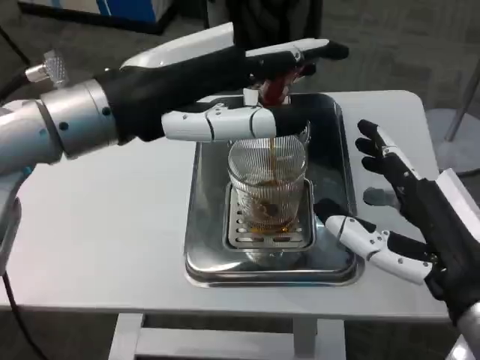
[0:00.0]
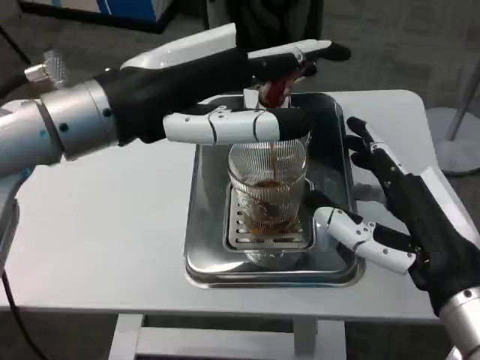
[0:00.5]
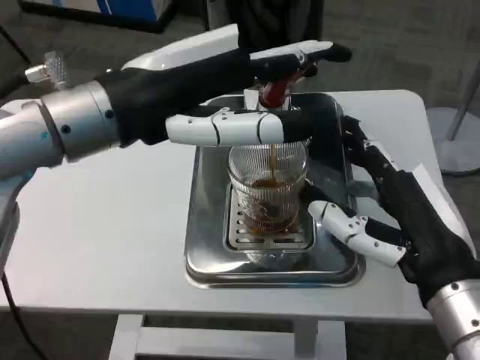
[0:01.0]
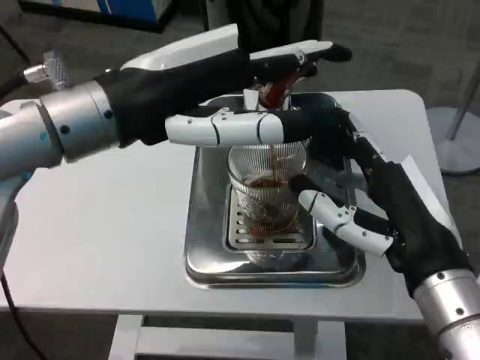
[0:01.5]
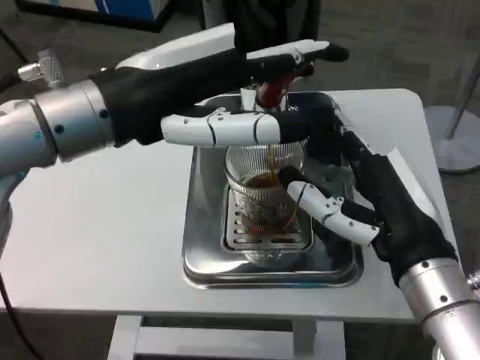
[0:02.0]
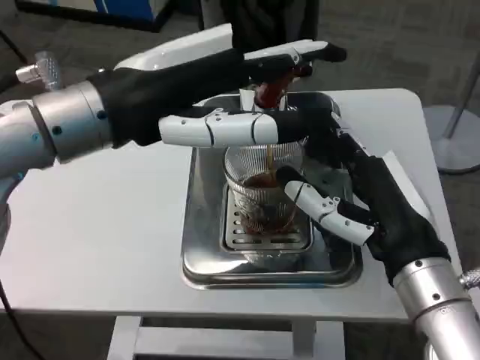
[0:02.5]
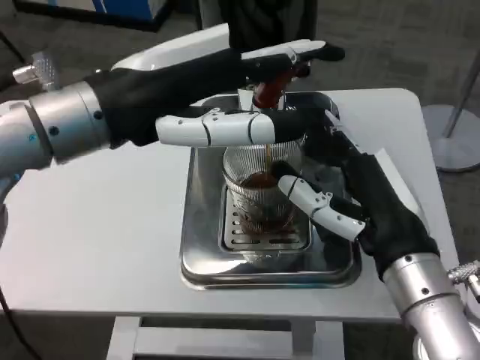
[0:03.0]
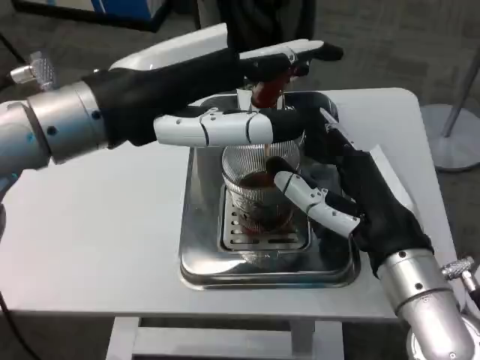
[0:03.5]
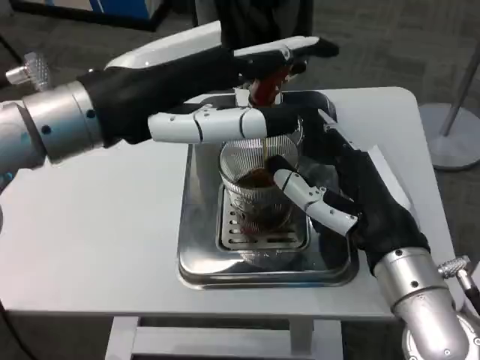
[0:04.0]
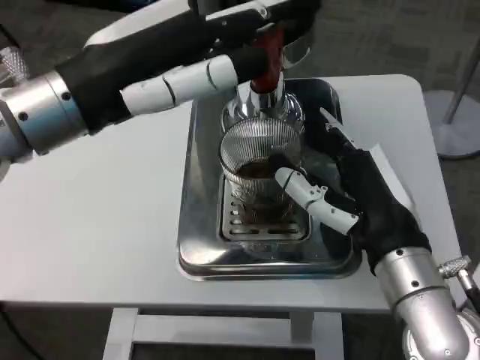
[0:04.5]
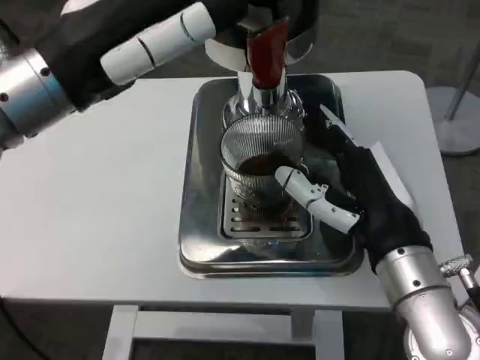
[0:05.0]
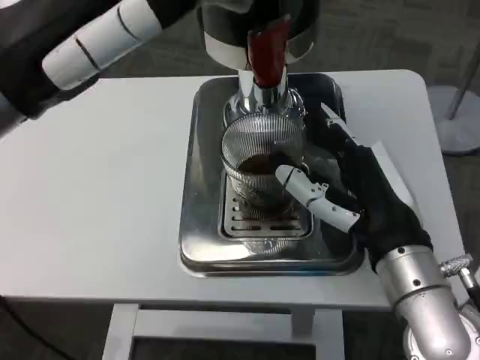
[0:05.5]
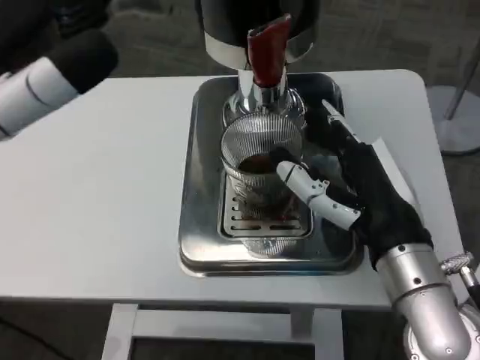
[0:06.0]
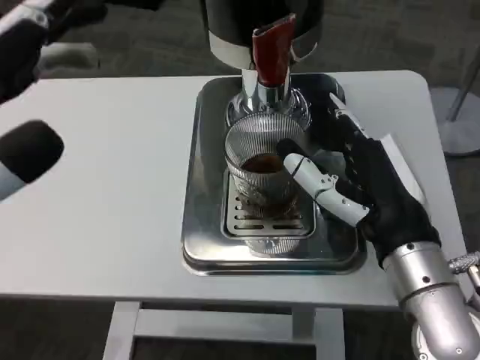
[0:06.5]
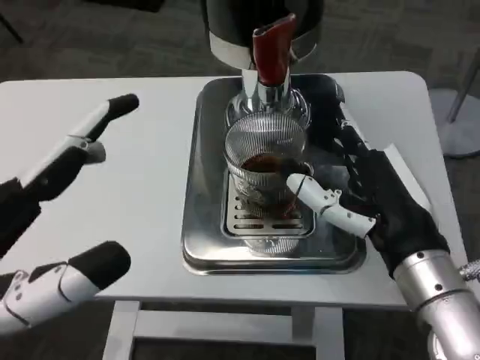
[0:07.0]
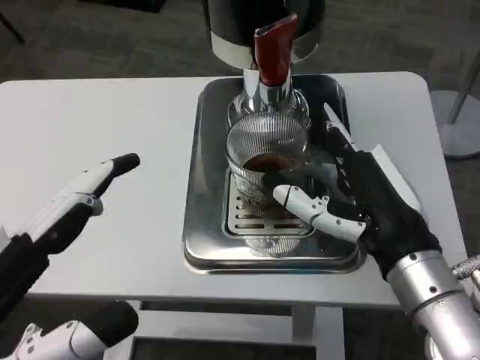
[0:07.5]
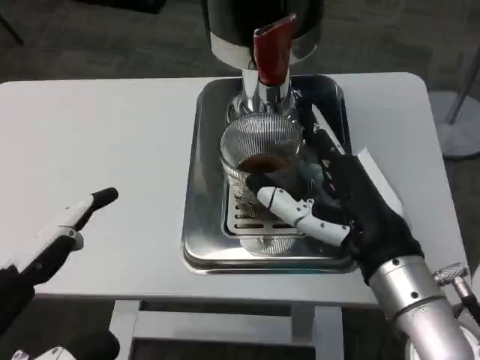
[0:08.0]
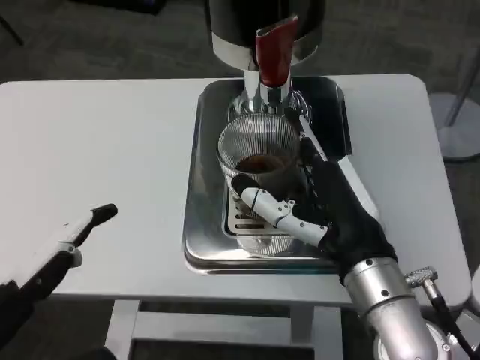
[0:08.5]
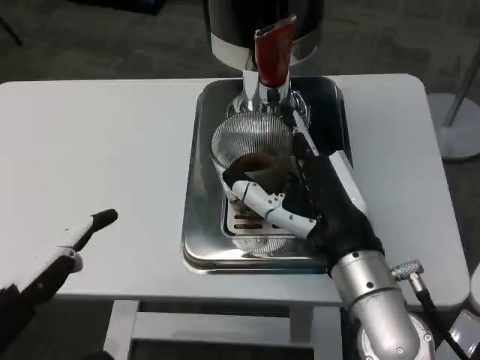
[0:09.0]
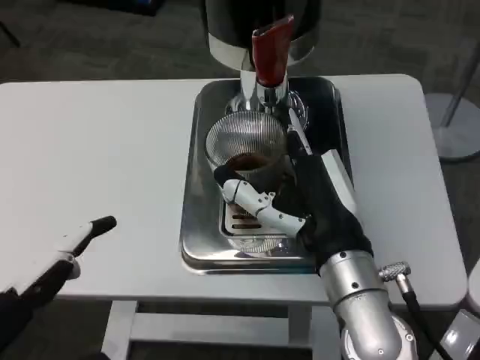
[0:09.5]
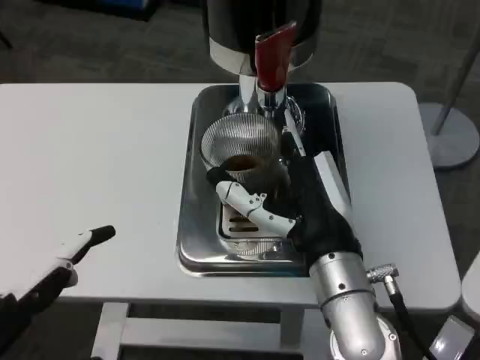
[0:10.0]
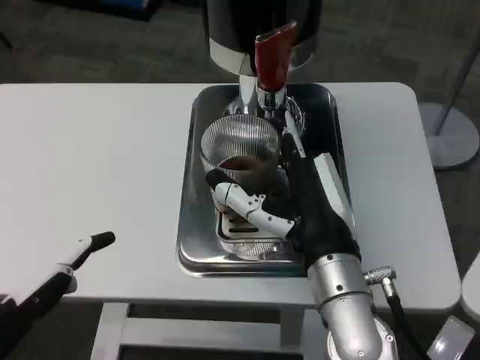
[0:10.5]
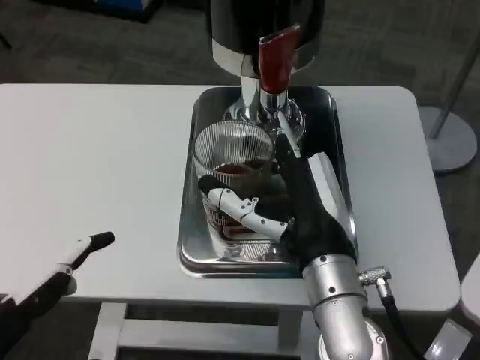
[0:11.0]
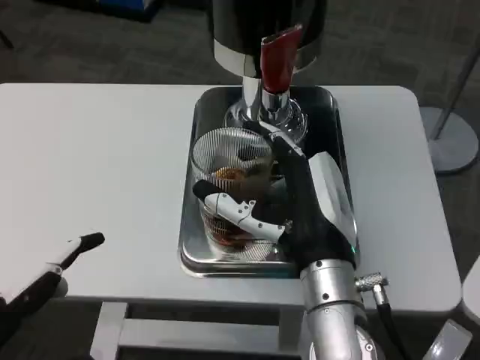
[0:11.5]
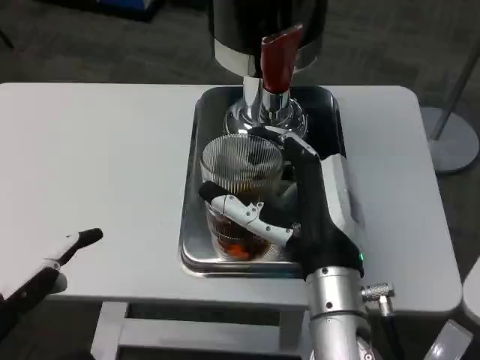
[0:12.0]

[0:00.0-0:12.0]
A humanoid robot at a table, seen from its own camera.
Task of the whole recording: Grasp the cup under the faucet to collect the drink, then remove the cup.
0:00.0 to 0:02.0: The right hand shifts by roughly 5 cm.
0:04.0 to 0:06.0: The left hand moves backward and to the left, about 10 cm.
0:06.0 to 0:08.0: The left hand shifts about 15 cm downward and backward.
0:08.0 to 0:10.0: The right hand goes roughly 5 cm to the left.
0:10.0 to 0:12.0: The hands move only a little.

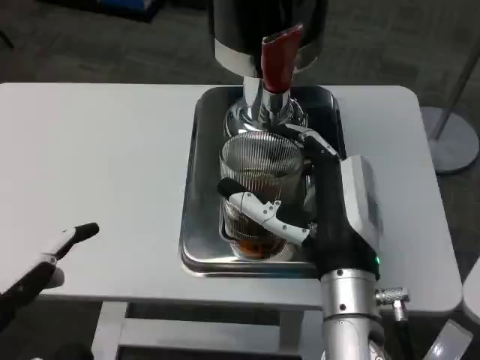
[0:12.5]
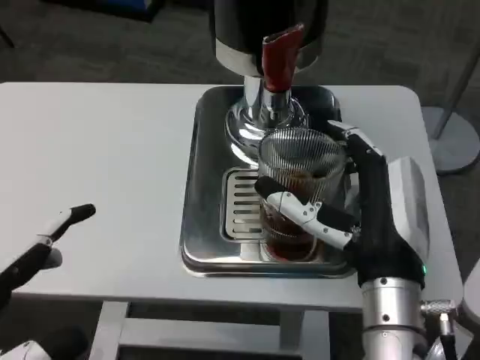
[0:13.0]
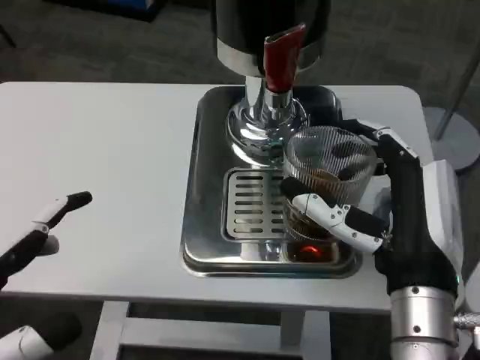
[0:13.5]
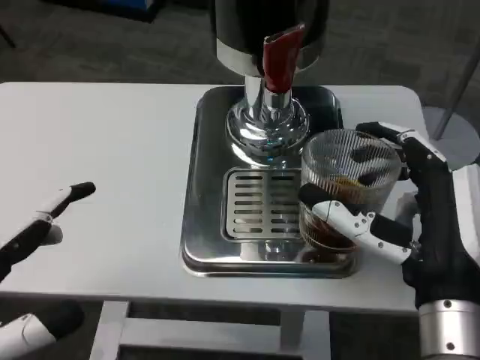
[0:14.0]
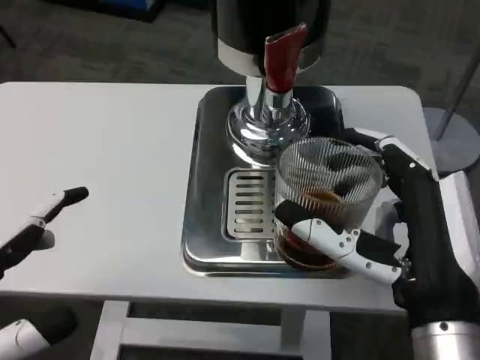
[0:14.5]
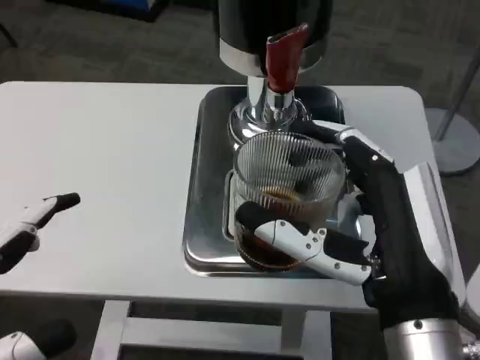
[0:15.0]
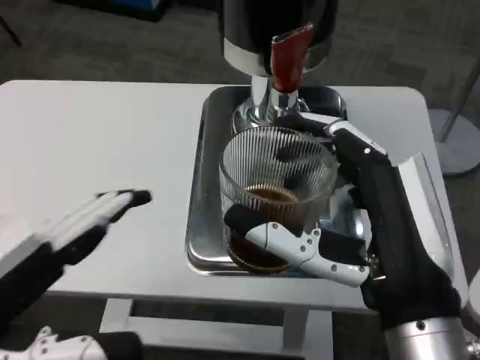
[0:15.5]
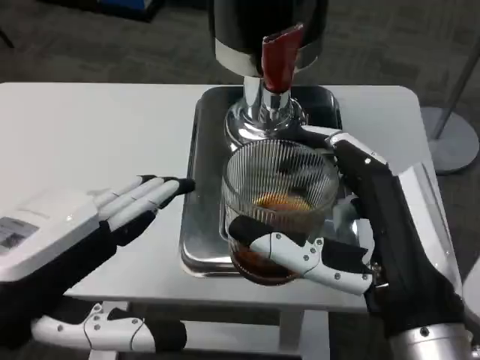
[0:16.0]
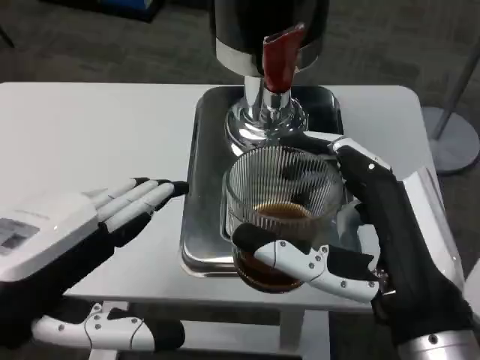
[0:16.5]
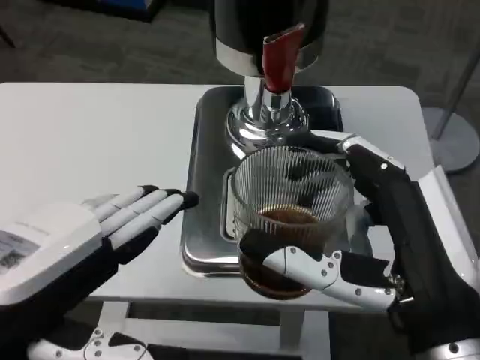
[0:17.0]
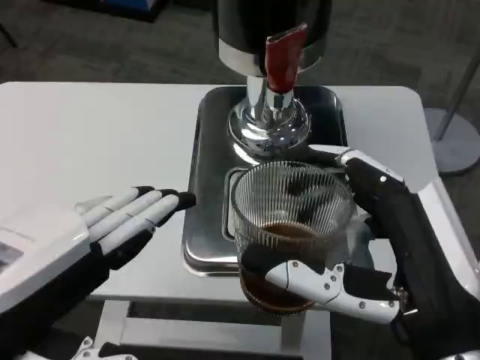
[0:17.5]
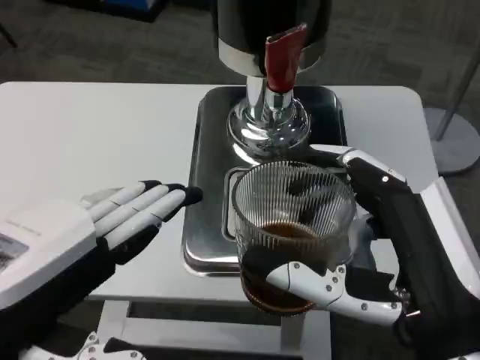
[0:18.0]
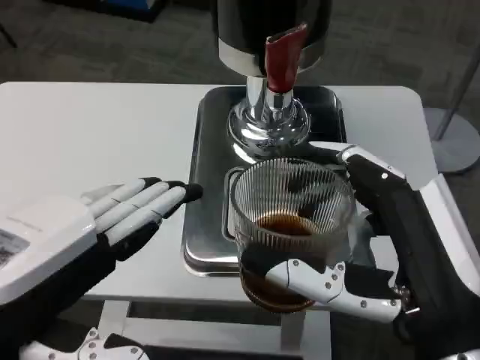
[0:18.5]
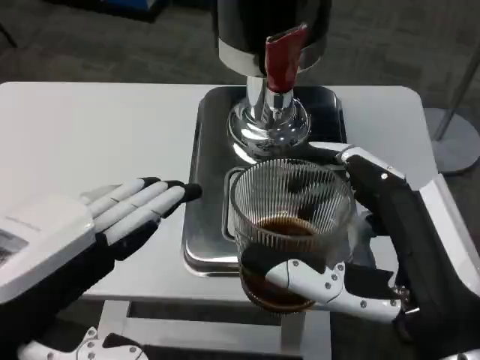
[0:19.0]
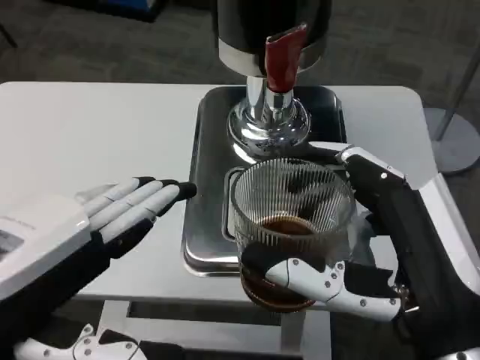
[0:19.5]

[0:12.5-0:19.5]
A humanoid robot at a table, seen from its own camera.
Task of the whole recording: Grasp the cup under the faucet to collect the drink, then remove the cup.
0:12.5 to 0:14.5: The right hand heads backward and to the right, covering approximately 10 cm.
0:14.5 to 0:16.0: The left hand shifts by some 5 cm.
0:17.5 to 0:19.5: Both hands stay about where they are.

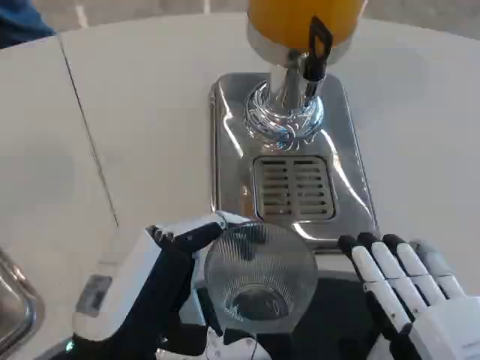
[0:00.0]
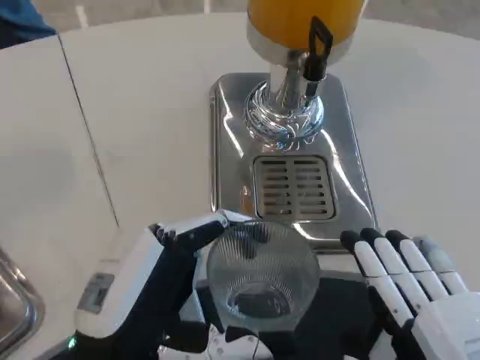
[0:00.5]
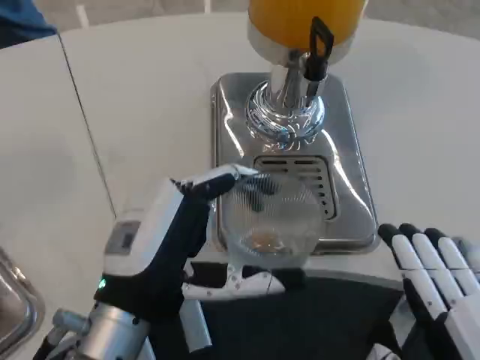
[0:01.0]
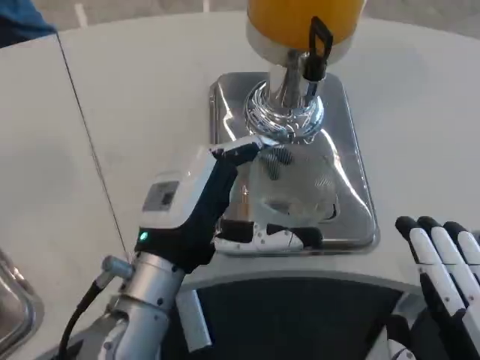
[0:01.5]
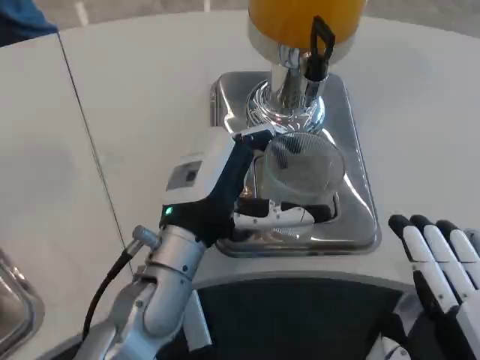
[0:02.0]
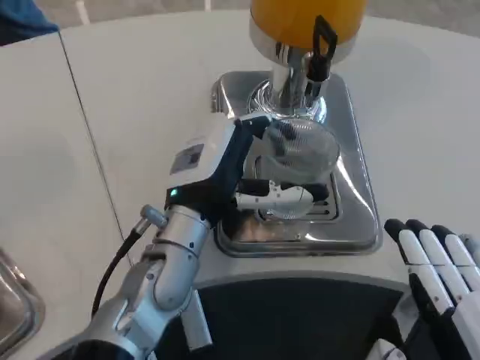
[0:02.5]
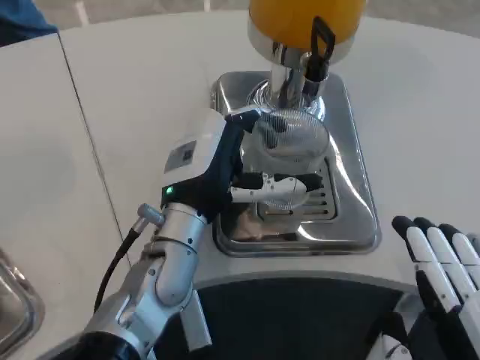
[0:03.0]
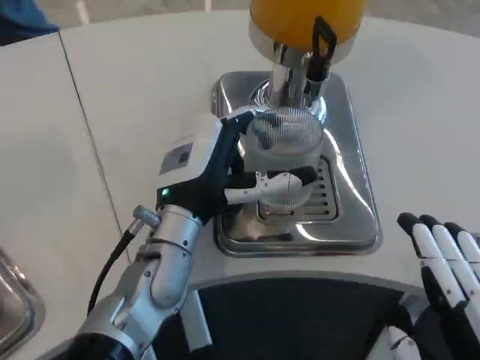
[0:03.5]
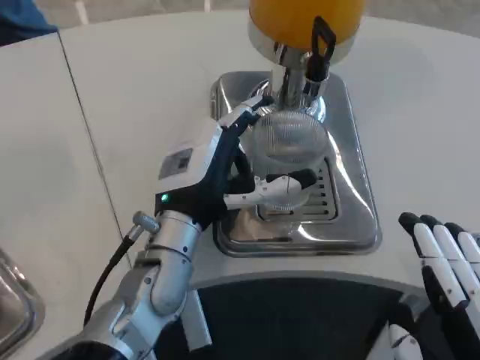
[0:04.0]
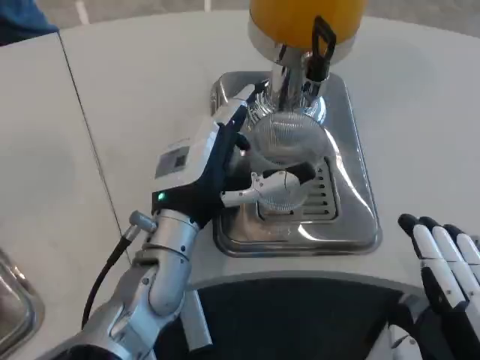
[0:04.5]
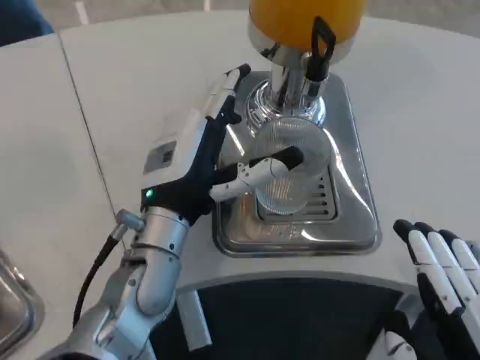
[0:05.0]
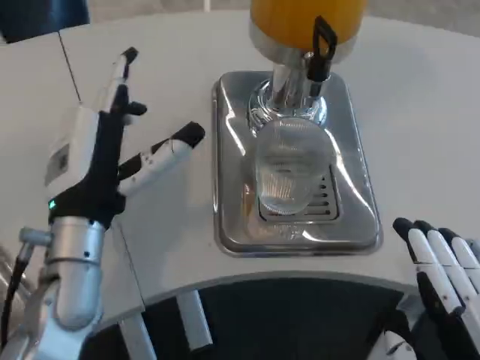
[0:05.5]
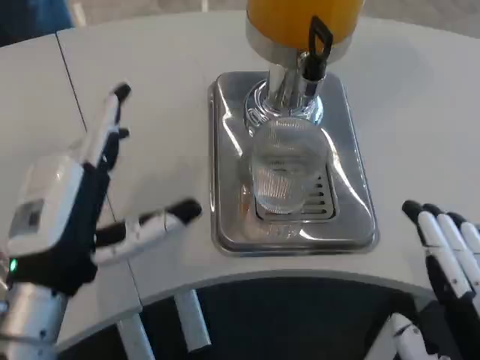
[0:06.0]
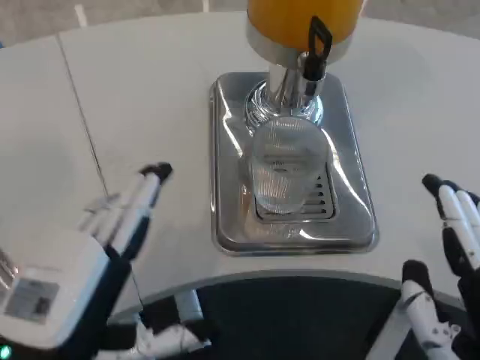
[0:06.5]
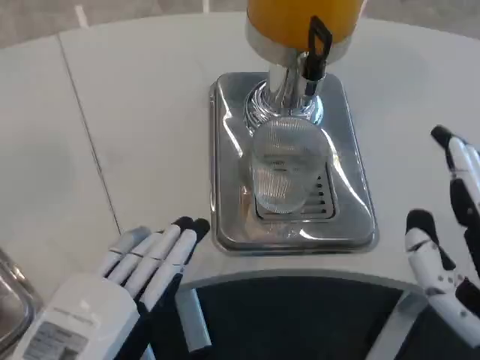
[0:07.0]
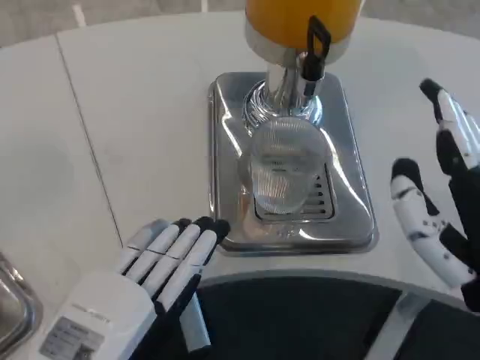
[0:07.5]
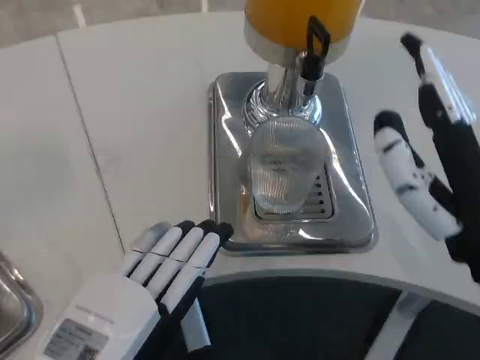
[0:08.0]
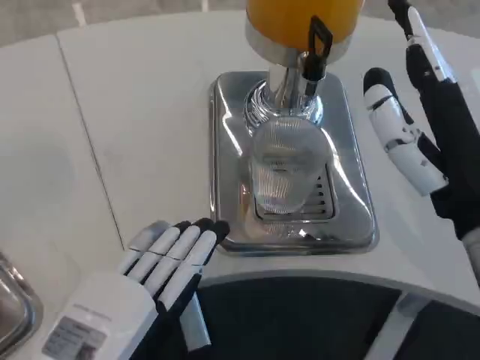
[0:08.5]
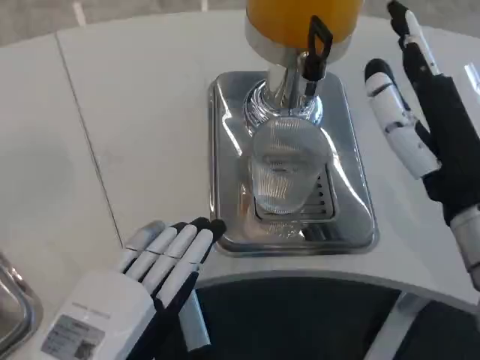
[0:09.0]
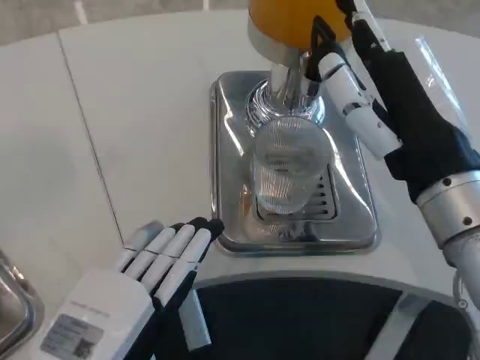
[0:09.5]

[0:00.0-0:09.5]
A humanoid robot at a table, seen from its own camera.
Task of the whole recording: Grasp the cup under the faucet to collect the drink, then remove the cup.
0:00.0 to 0:02.0: The left hand shifts approximately 15 cm forward.
0:02.0 to 0:04.0: The hands stay close to where they were, moving slightly.
0:04.0 to 0:05.5: The left hand moves to the left, about 5 cm.
0:05.5 to 0:07.5: The left hand is displaced backward by approximately 15 cm. The right hand shifts about 10 cm forward.
0:07.5 to 0:09.5: The right hand is displaced forward and upward by approximately 10 cm.
